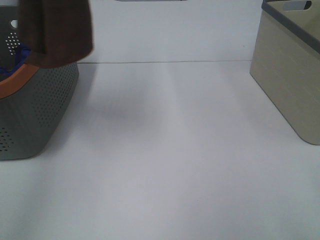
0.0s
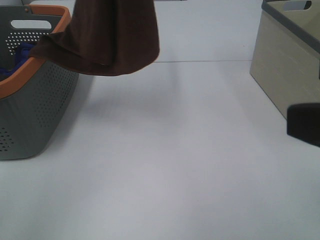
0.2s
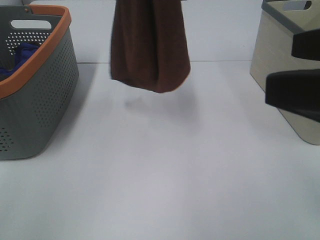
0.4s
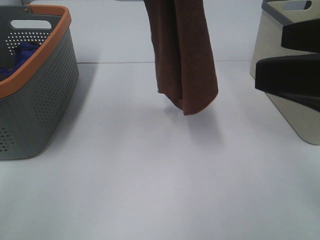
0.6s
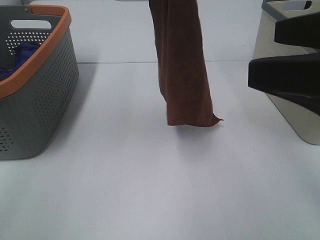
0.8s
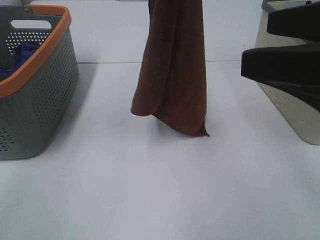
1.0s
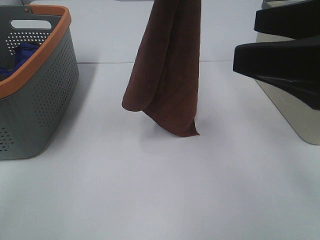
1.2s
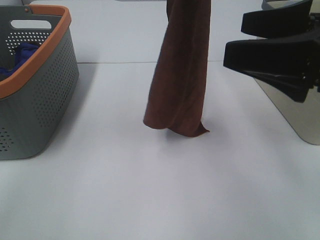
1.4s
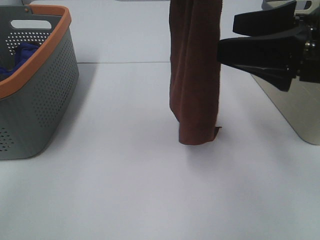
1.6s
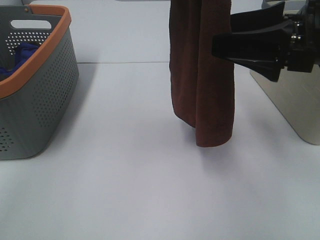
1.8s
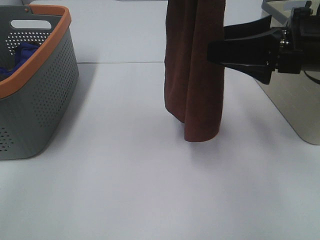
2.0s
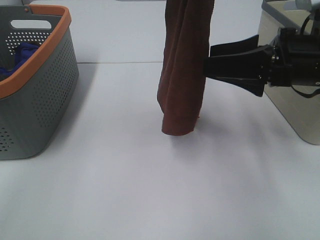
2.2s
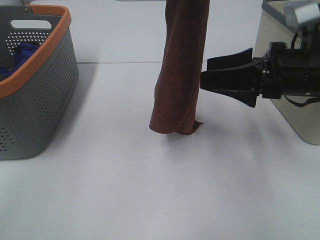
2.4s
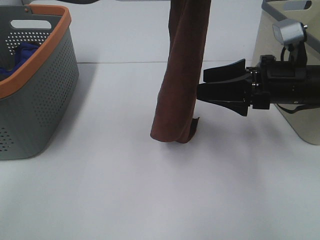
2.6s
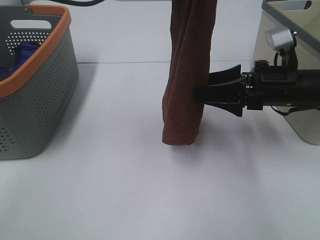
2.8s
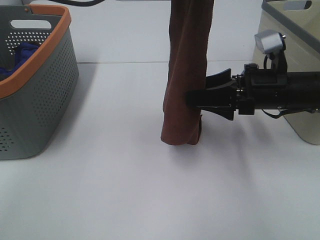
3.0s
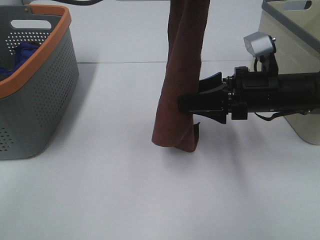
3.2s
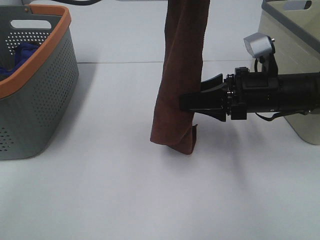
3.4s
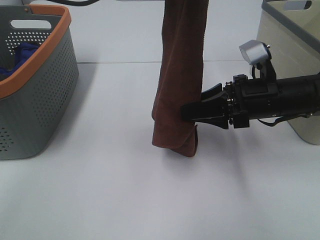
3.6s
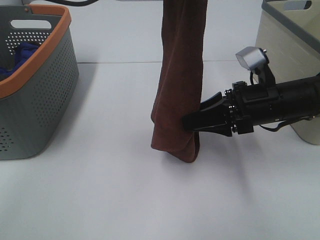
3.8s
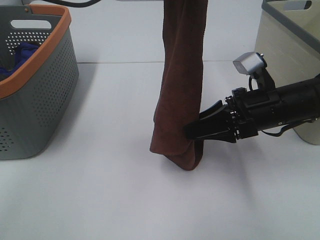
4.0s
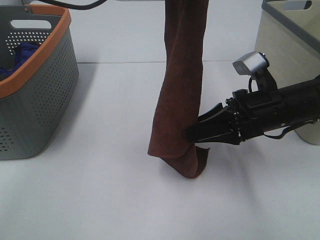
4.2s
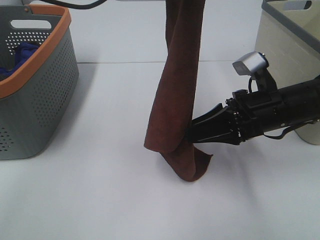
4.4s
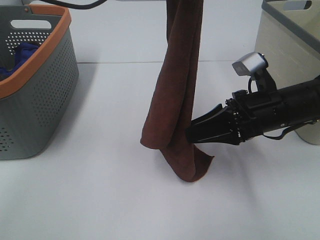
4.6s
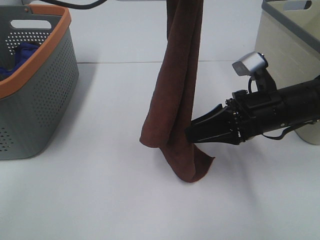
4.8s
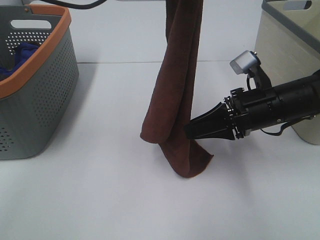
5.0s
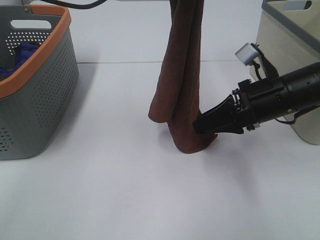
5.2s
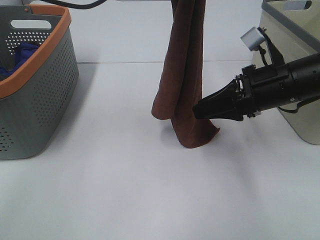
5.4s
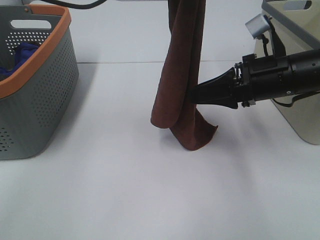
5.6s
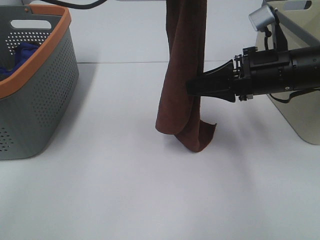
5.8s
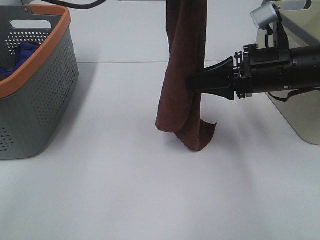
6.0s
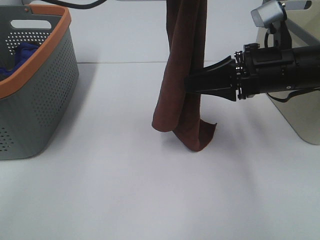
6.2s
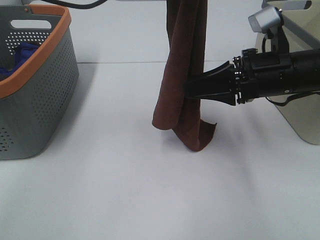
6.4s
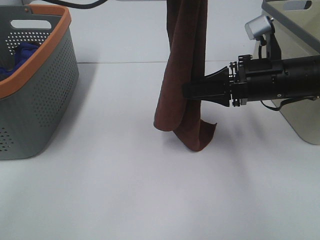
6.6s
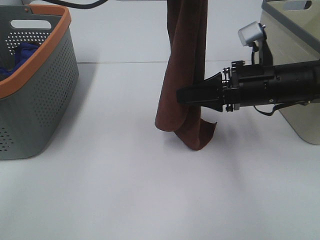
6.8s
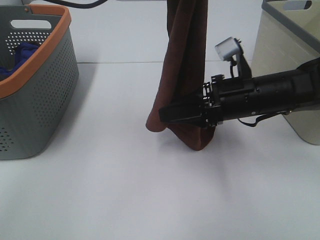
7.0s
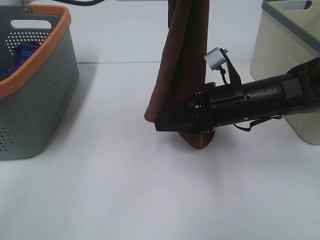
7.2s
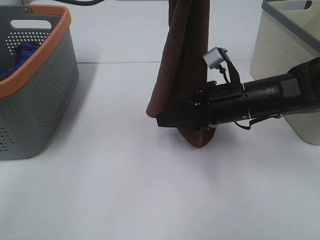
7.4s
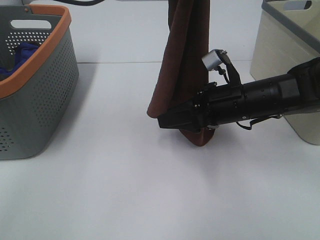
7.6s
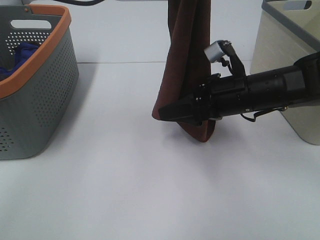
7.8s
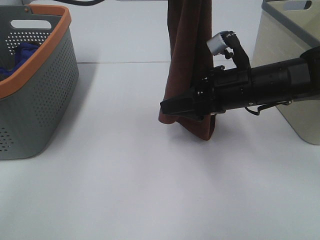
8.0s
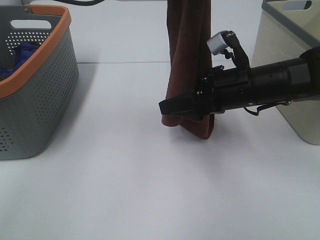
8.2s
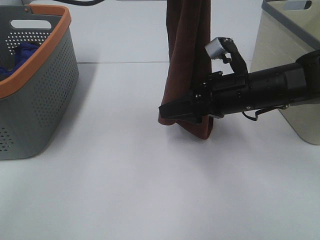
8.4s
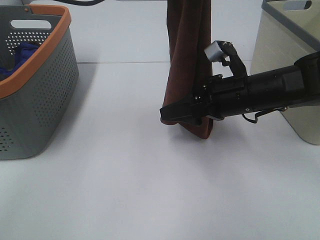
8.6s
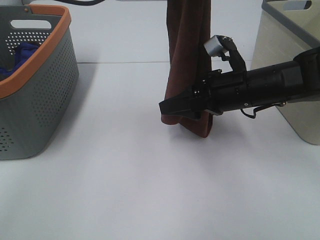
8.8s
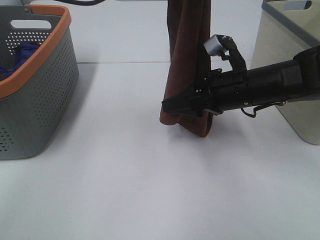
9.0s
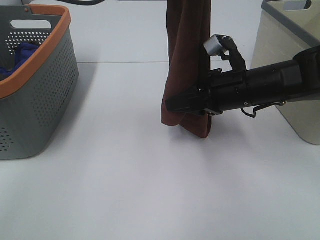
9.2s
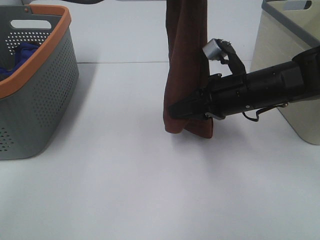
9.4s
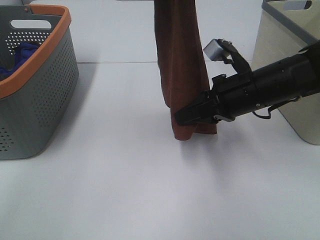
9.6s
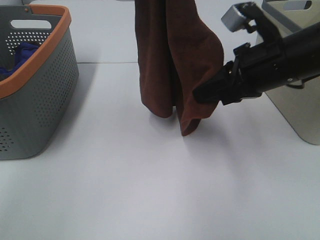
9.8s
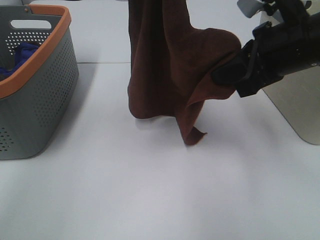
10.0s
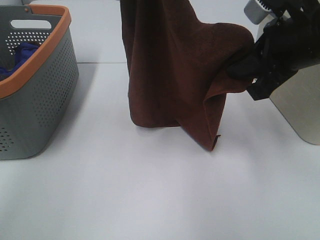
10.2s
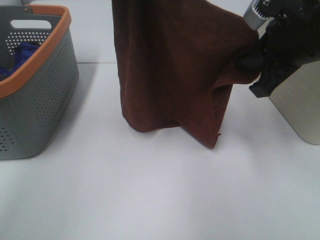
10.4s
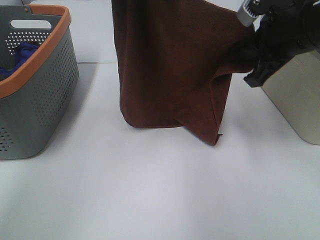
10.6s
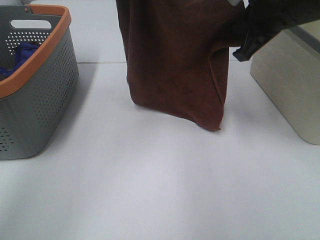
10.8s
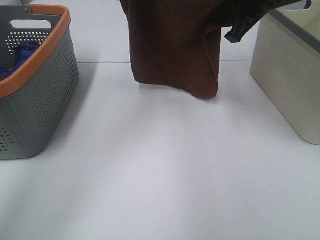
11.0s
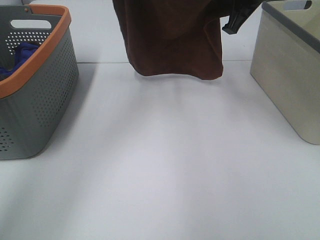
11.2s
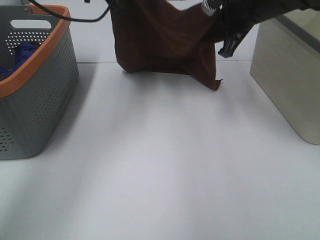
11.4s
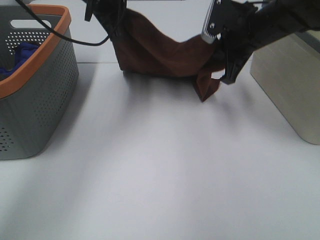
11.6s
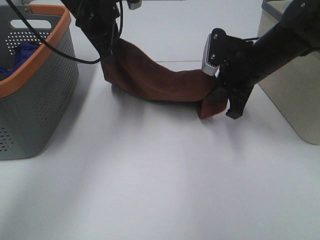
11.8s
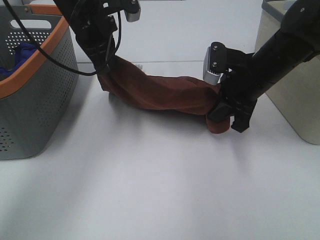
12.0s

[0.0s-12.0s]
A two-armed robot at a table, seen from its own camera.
Task of the whole recording: Remove the towel and place it.
Step, 0.0s to 6.4s: Right hand: grab a corner of the brown towel and straighten it.
Step, 6.6s to 8.2s: Right hand: spread the brown towel flat on the table.
0.0s to 1.6s: The right gripper goes some 15 cm forward. Meanwhile the left gripper heads to the right and downward, covering some 20 cm.
1.6s to 3.0s: The right gripper is displaced downward and forward by approximately 15 cm.
3.0s to 4.4s: The right gripper closes its fingers.
4.4s to 6.0s: The right gripper shifts about 5 cm upward.
6.0s to 7.6s: The right gripper shifts some 5 cm downward.
7.6s to 9.0s: The grippers move only a little.
9.0s to 10.4s: The left gripper is displaced to the left by about 5 cm. Meanwhile the right gripper moves upward, about 15 cm, and closes its fingers.
10.4s to 12.0s: The left gripper travels downward by approximately 15 cm. The right gripper goes roughly 10 cm downward and forward.

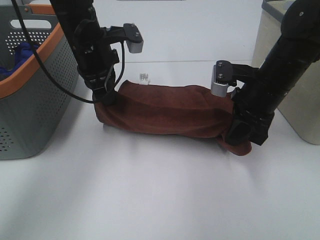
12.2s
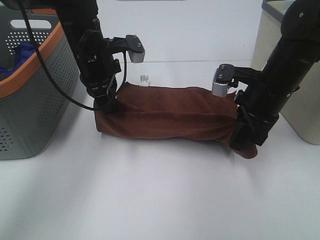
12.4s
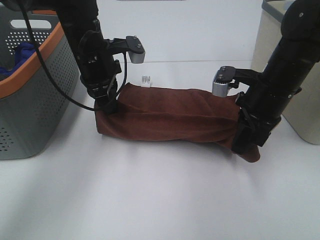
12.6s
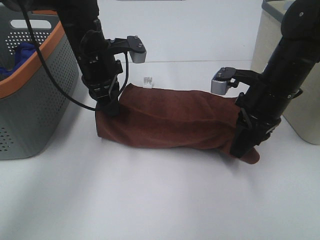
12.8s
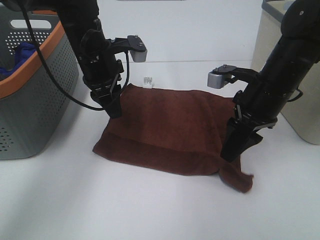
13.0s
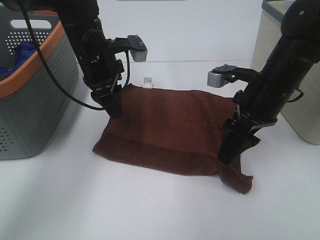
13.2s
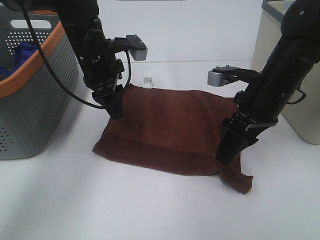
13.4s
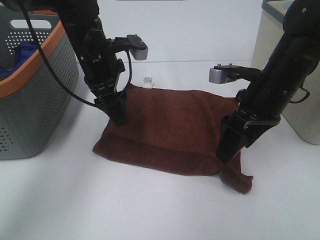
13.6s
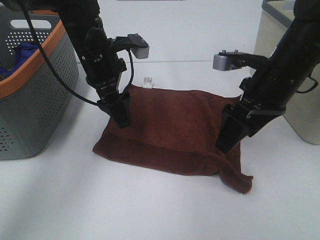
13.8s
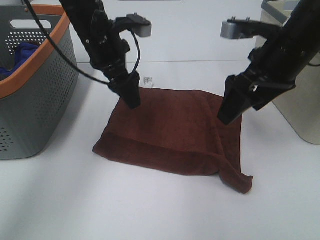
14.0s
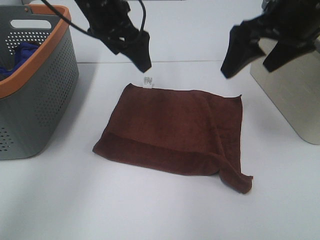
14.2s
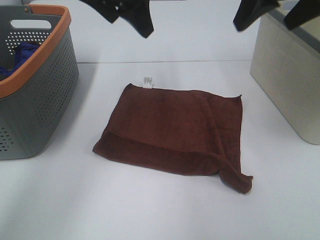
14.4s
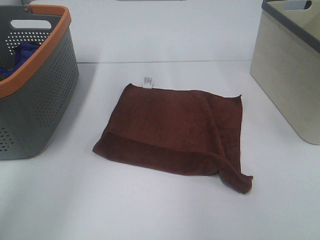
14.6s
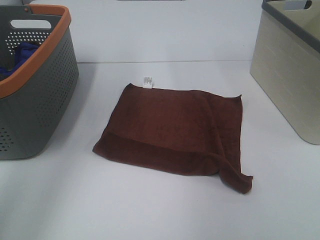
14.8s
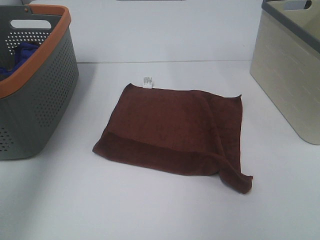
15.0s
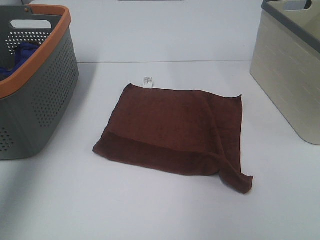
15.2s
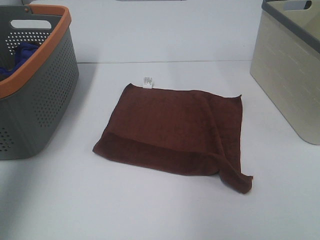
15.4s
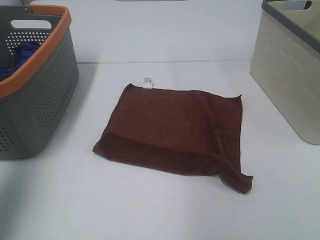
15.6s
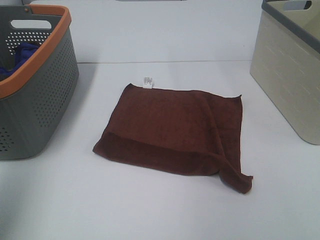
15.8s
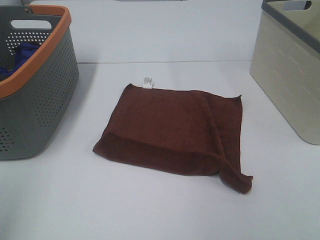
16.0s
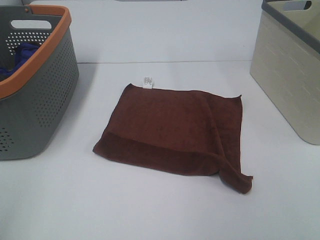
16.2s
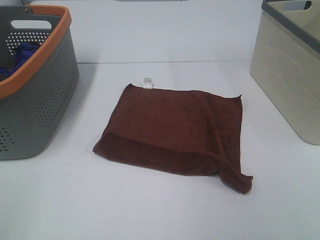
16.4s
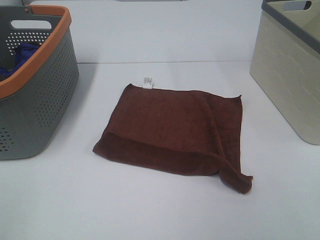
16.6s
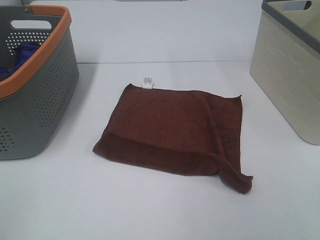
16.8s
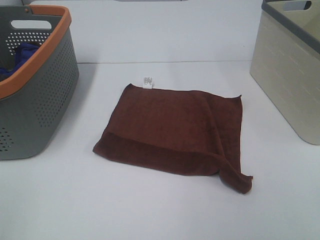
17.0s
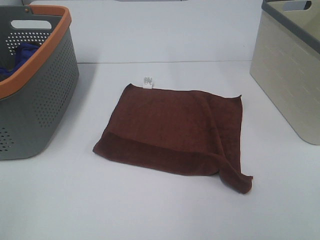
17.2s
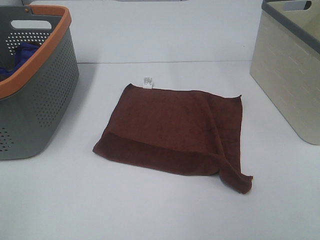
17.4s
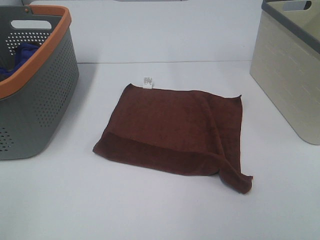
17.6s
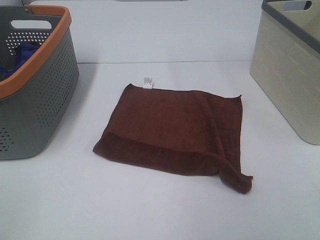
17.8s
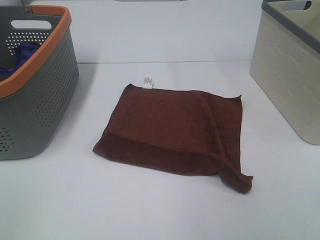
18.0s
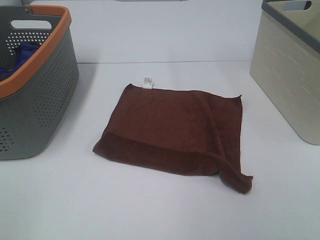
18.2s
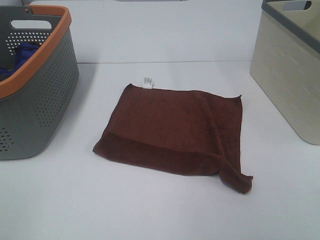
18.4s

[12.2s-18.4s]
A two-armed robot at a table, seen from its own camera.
Task of the whole recording: Remove the towel and place it.
12.2s to 13.8s: The left gripper opens its fingers, while the right gripper opens.
13.8s to 15.4s: The right gripper travels upward, backward and to the right by roughly 30 cm. Meanwhile the left gripper is displaced upward, to the left and backward by approximately 35 cm.
15.4s to 16.8s: The left gripper heads backward and downward, covering some 30 cm.

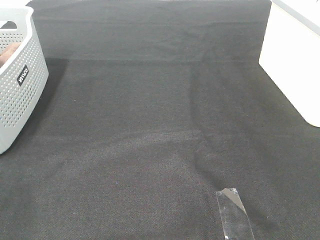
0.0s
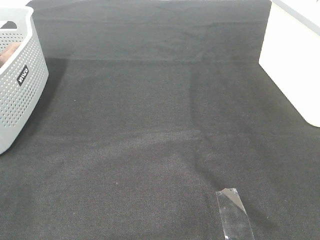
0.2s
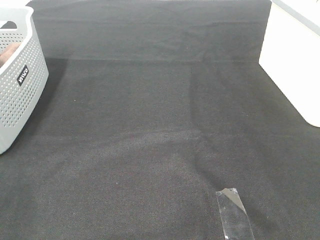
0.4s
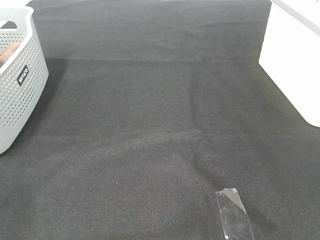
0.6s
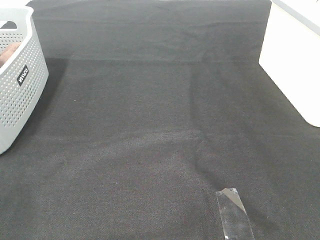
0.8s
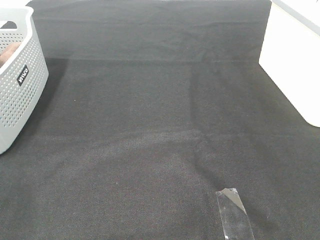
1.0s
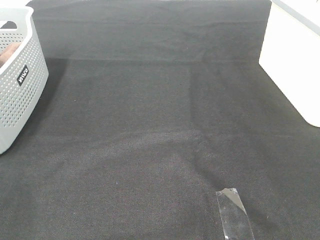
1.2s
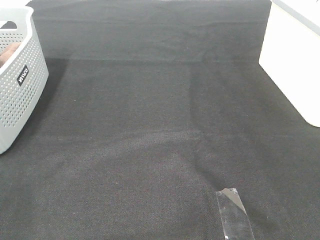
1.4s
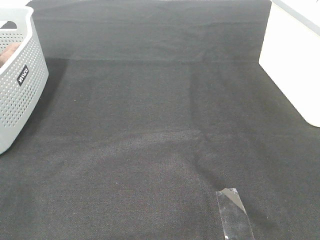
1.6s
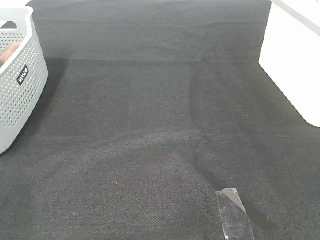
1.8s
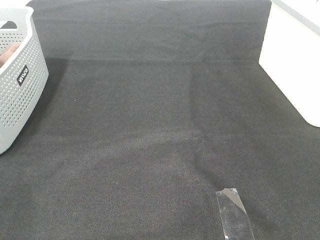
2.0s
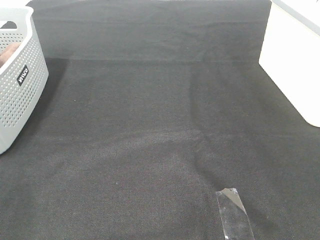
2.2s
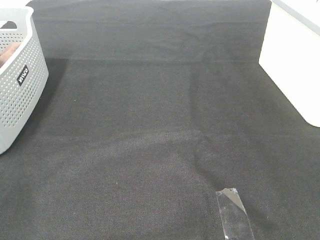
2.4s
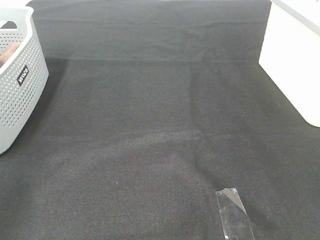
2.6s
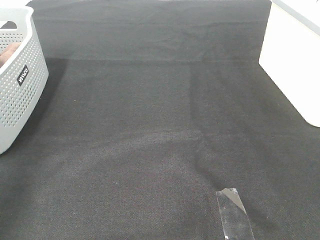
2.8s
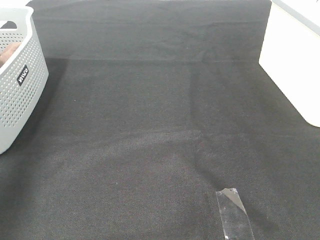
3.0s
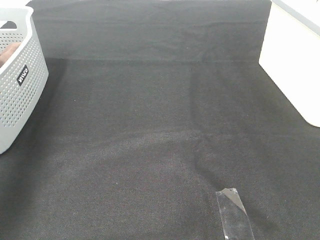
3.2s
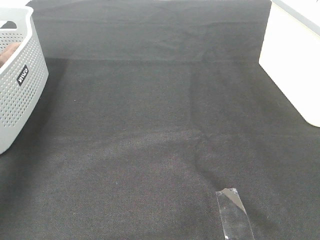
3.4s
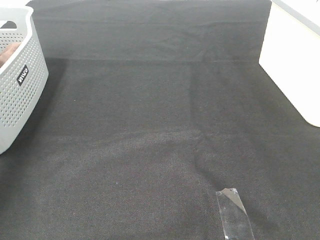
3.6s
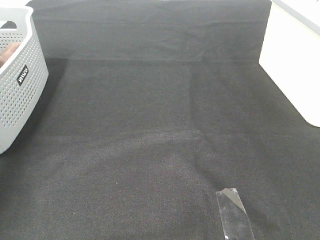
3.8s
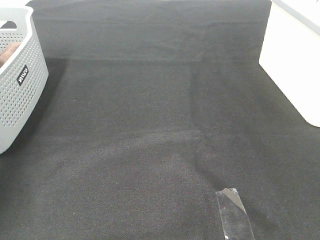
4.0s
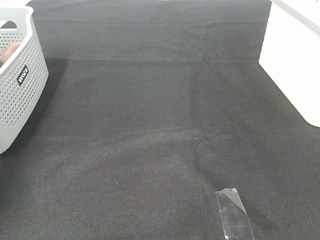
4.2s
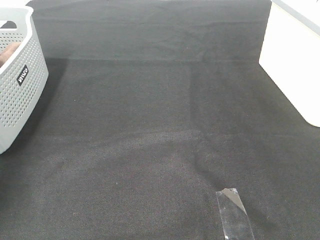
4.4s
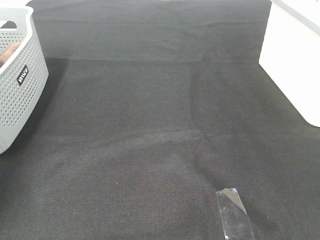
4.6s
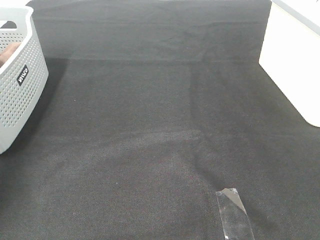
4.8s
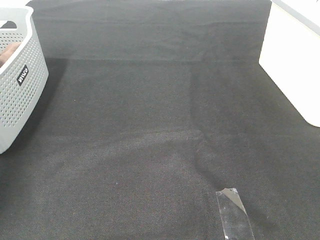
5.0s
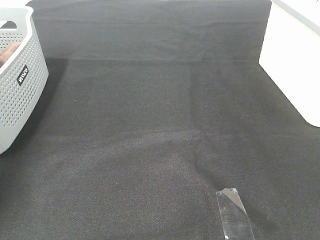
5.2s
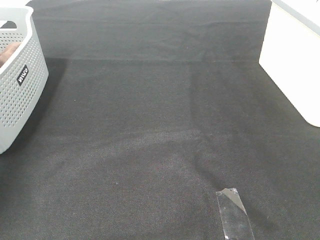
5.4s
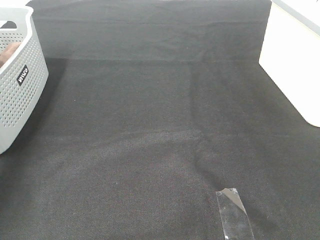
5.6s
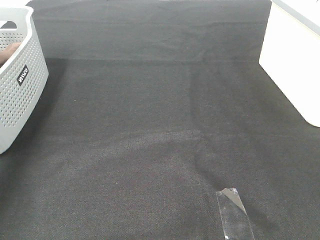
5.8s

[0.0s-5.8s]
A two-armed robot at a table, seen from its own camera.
Task of the whole recording: Remove the towel and place it.
0.0s to 1.4s: Both grippers stay put.
